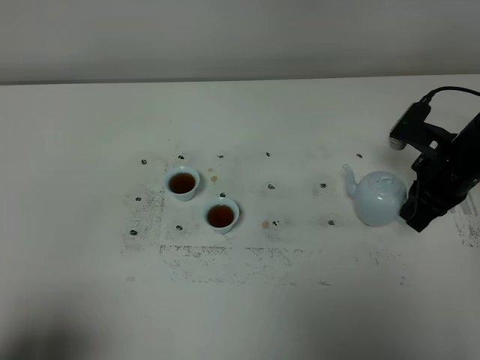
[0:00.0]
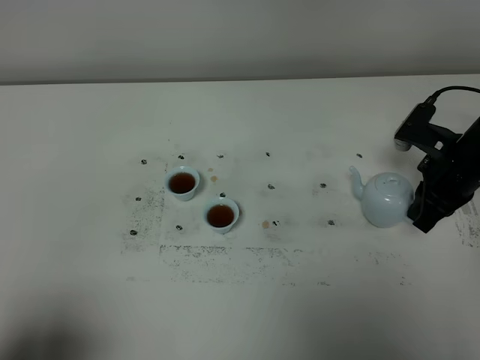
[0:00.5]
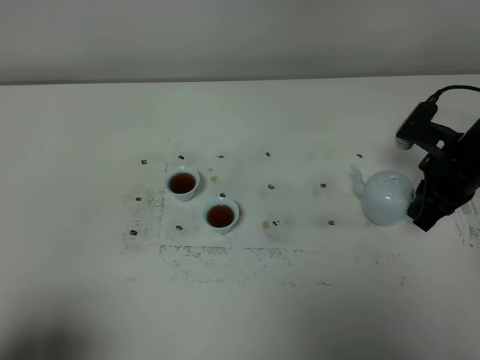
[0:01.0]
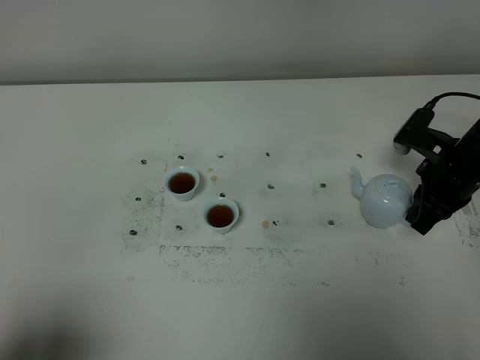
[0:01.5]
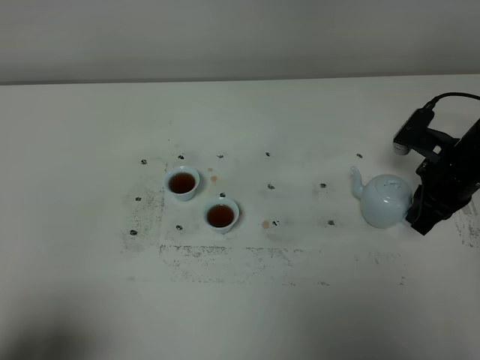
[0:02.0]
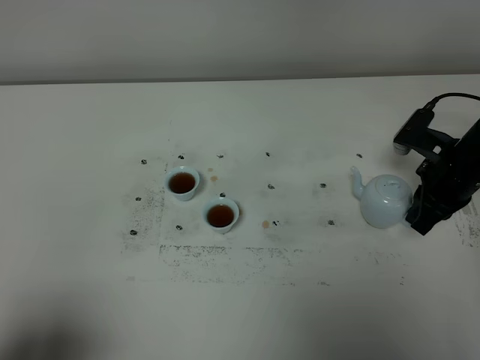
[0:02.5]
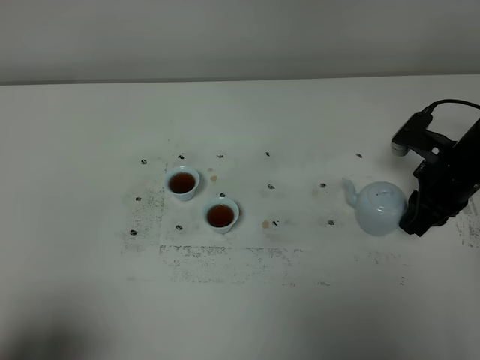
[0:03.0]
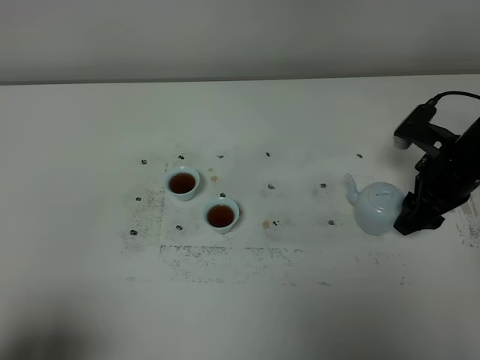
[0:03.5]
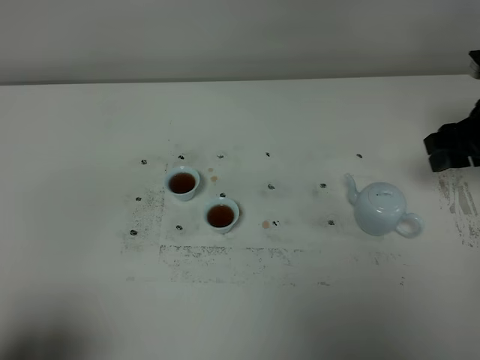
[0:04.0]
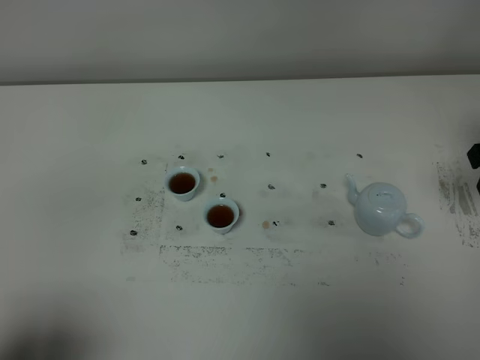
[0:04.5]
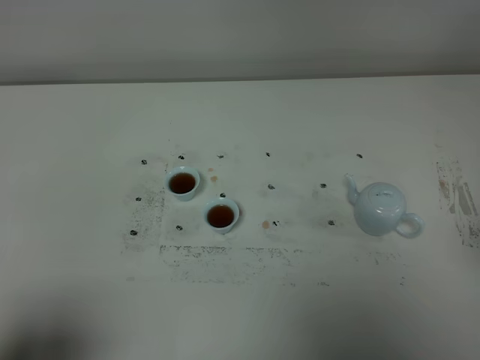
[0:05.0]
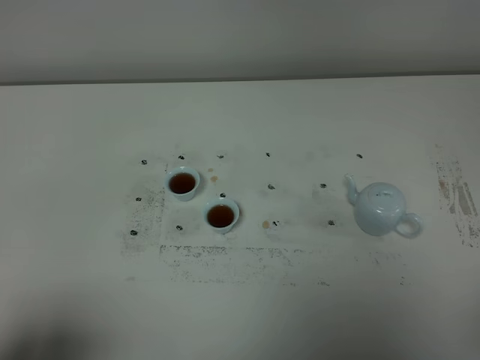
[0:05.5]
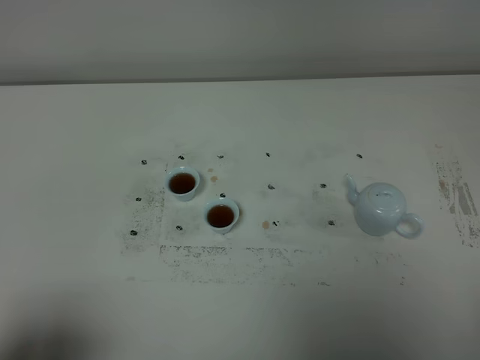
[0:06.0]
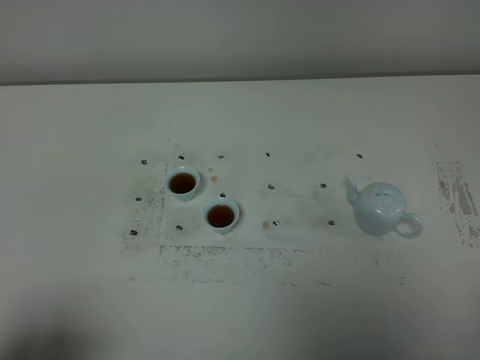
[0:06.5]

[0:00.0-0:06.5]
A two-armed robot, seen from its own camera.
Task of the whole recording: grasp the blue porcelain teapot and pour the tea into the two blue porcelain teacups one by one, put the blue porcelain teapot back in its original place.
0:00.0 to 0:02.0: The grippers make only small movements.
0:02.0 to 0:04.5: The right gripper travels upward and backward by some 15 cm, and opens up.

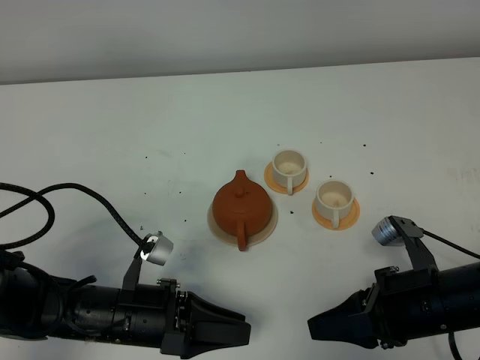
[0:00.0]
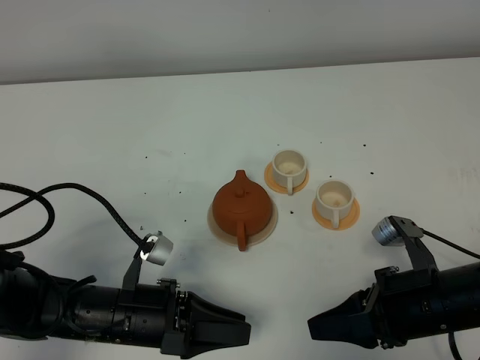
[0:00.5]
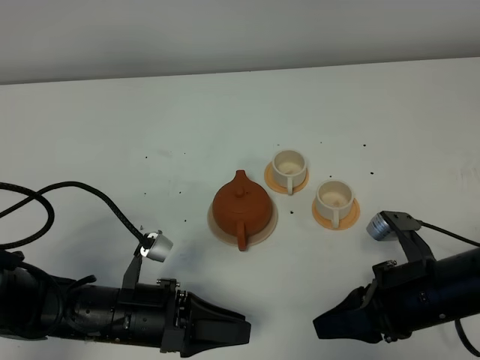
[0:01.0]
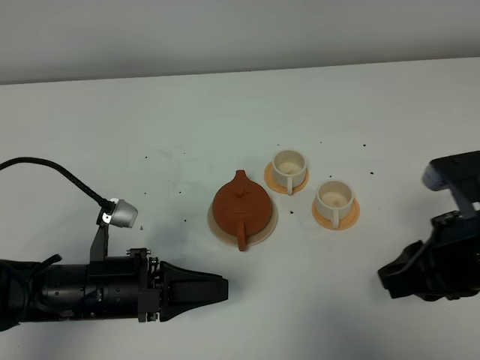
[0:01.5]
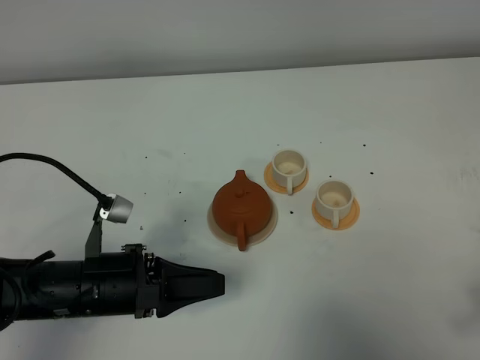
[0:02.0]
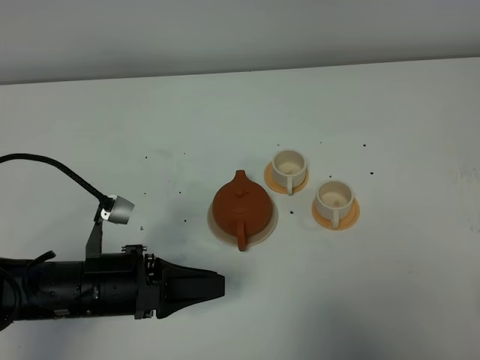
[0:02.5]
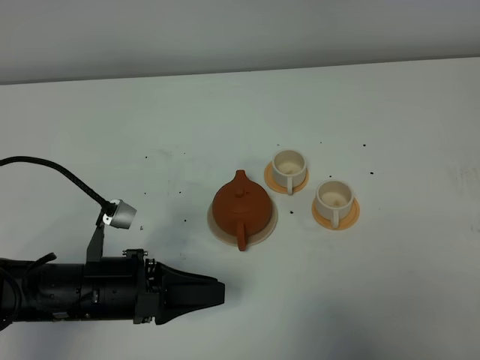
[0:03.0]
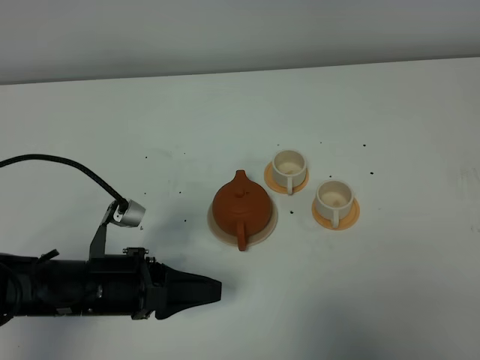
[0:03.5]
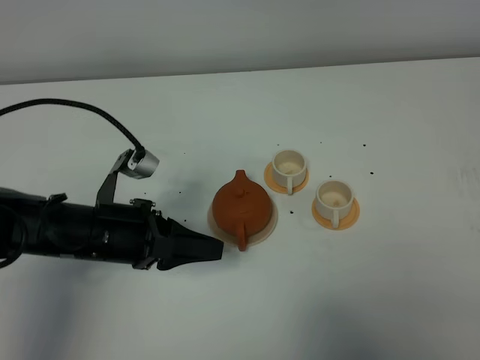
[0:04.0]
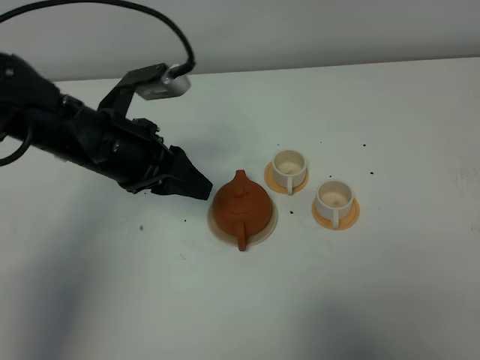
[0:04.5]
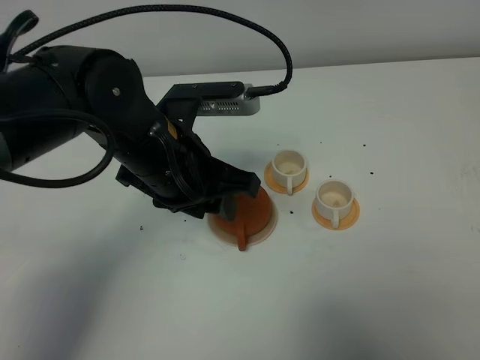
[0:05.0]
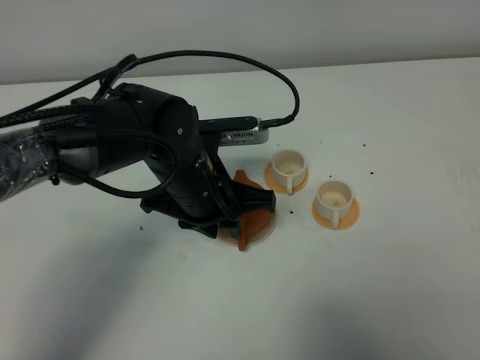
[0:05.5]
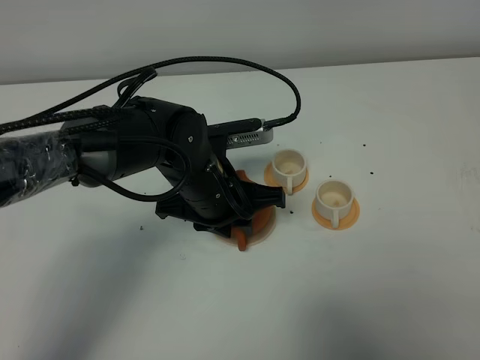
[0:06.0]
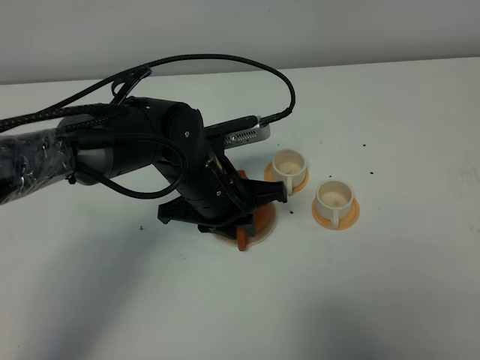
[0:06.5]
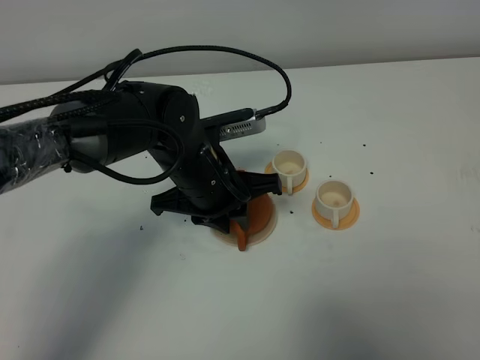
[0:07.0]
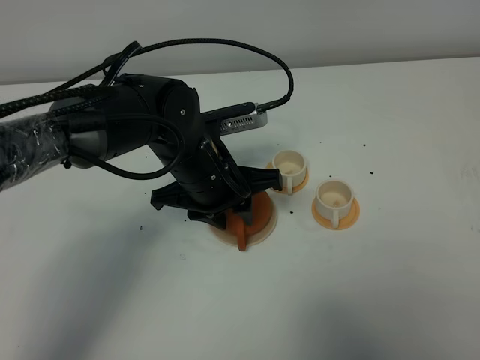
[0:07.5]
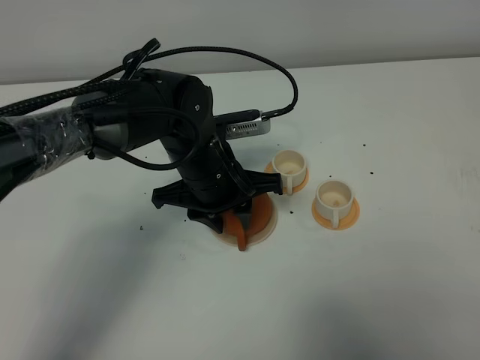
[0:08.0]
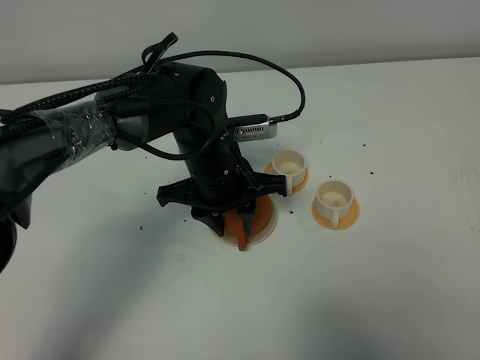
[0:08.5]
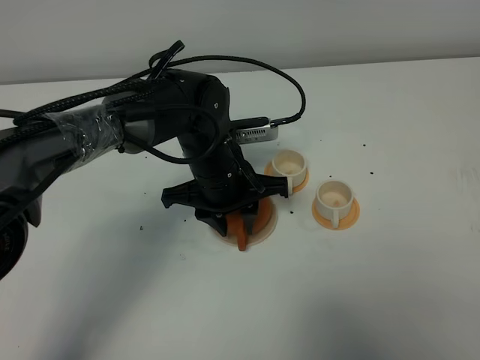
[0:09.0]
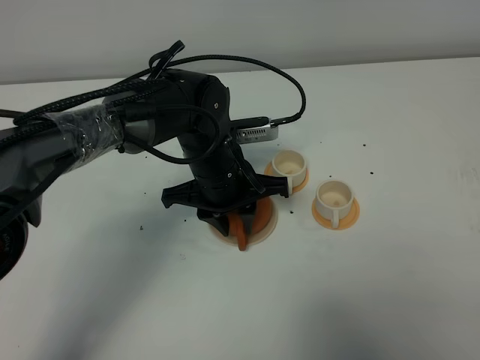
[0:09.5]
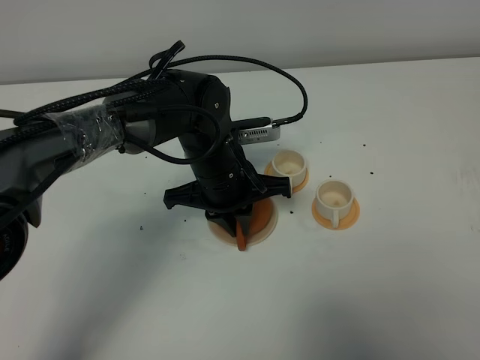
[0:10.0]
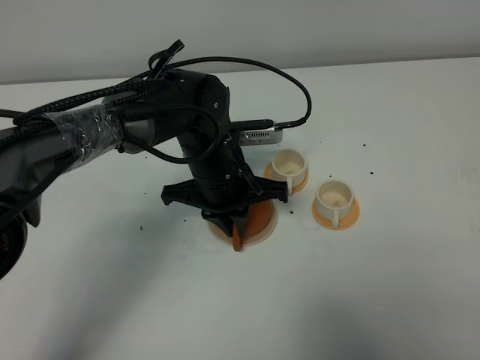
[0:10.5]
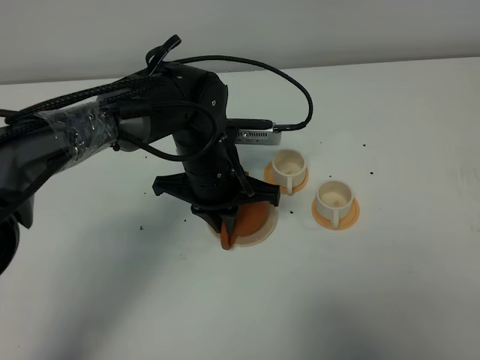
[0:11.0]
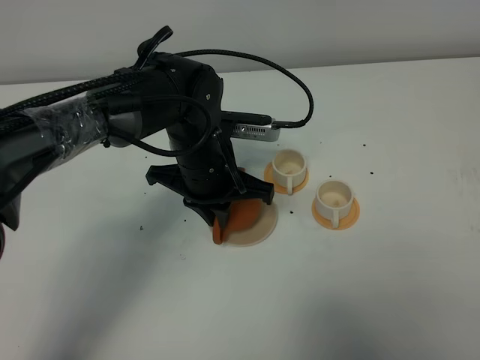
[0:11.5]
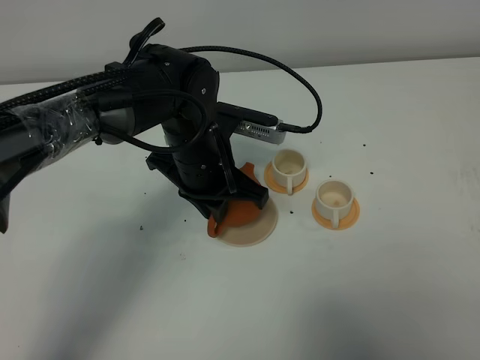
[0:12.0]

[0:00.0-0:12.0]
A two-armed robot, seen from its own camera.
Task of the whole recording: grasp the brown teapot and pour the tea into the two white teacups one by one, put the brown teapot back in its original place.
Step, 0:00.0 to 0:11.0: Pick up the teapot with the left gripper.
0:00.0 to 0:02.0: The right gripper goes approximately 20 cm upward, to the right and backward.
0:02.0 to 0:04.0: The right gripper heads backward, covering approximately 10 cm, while the left gripper shifts some 5 cm forward.
0:04.0 to 0:06.0: The left gripper shifts about 15 cm to the right and forward.
0:06.0 to 0:08.0: The grippers stay close to where they were, moving slightly.
0:08.0 to 0:10.0: The left gripper closes up.

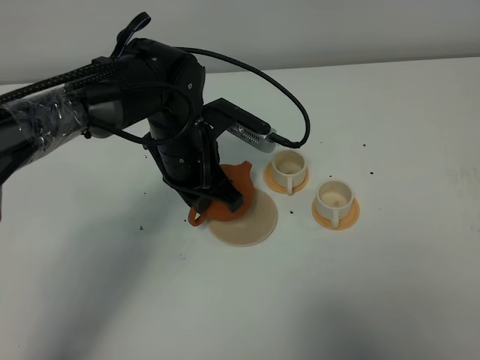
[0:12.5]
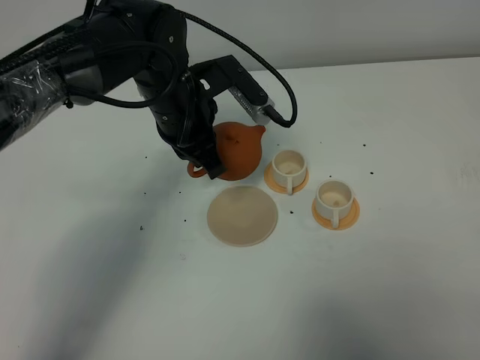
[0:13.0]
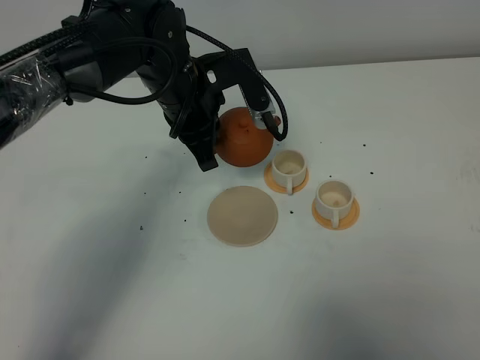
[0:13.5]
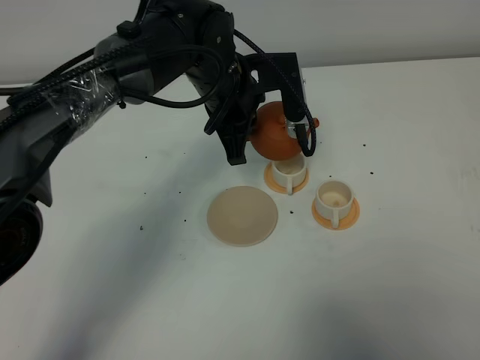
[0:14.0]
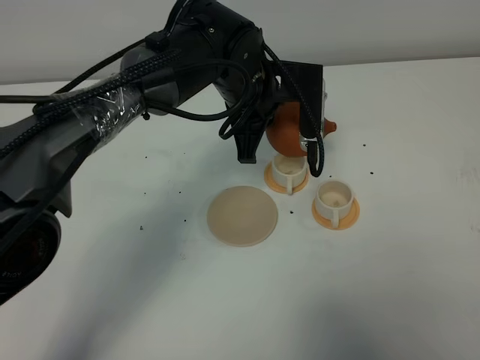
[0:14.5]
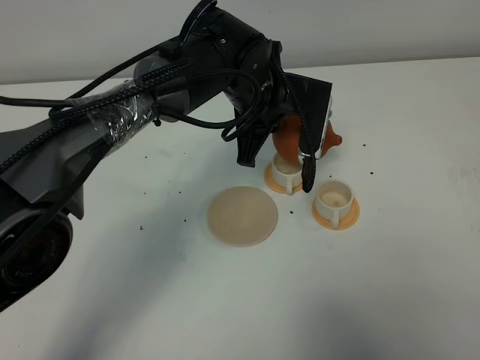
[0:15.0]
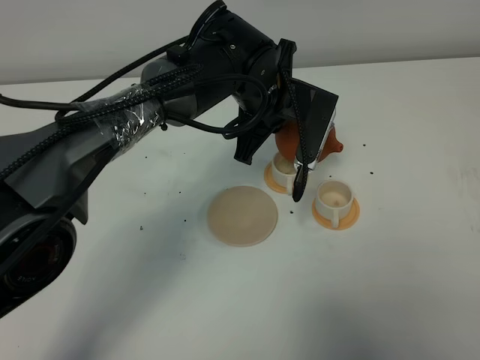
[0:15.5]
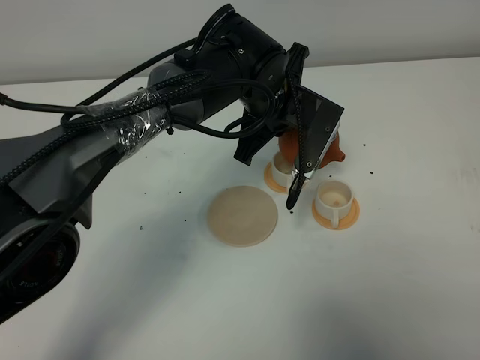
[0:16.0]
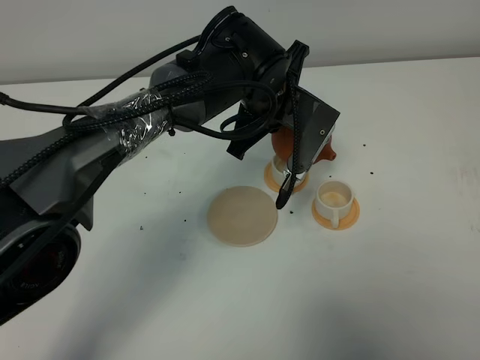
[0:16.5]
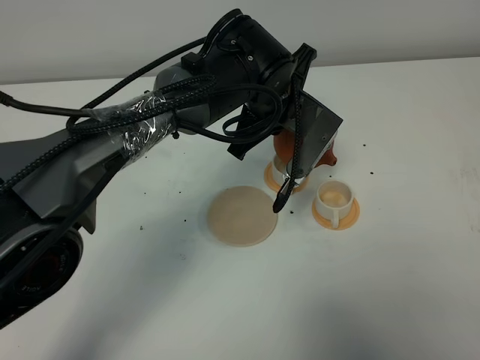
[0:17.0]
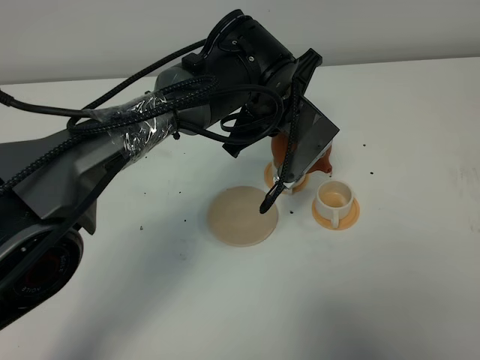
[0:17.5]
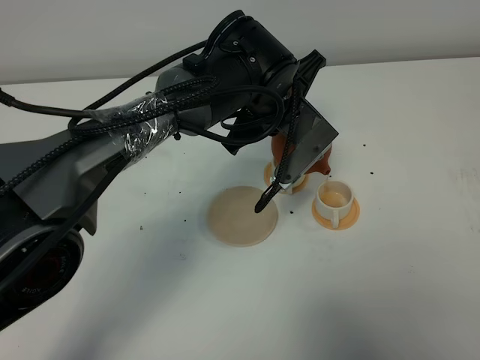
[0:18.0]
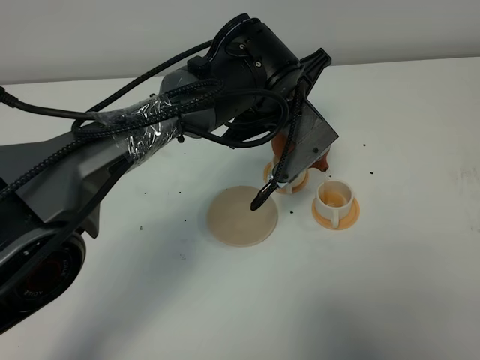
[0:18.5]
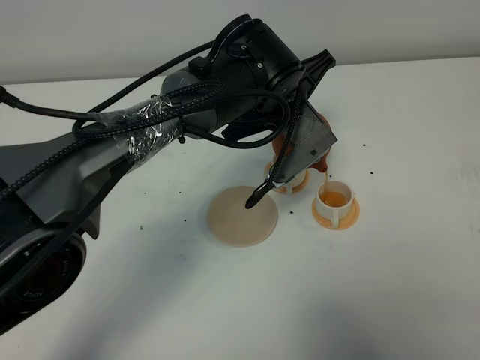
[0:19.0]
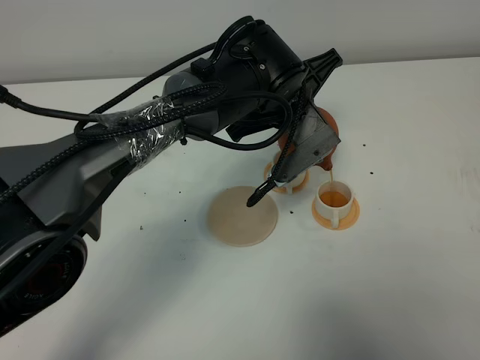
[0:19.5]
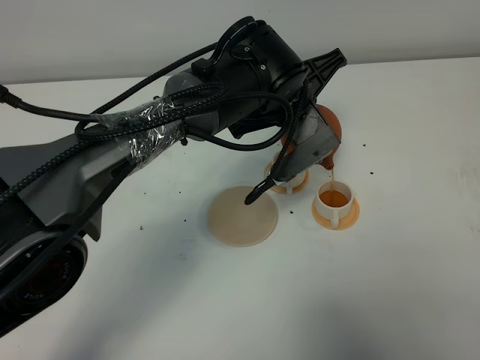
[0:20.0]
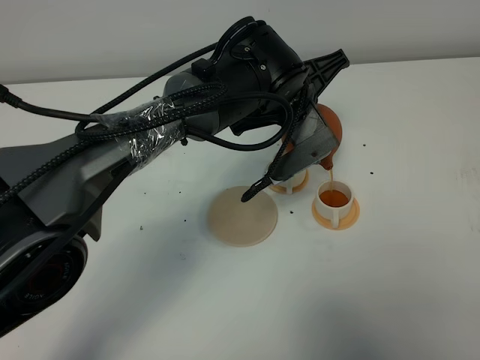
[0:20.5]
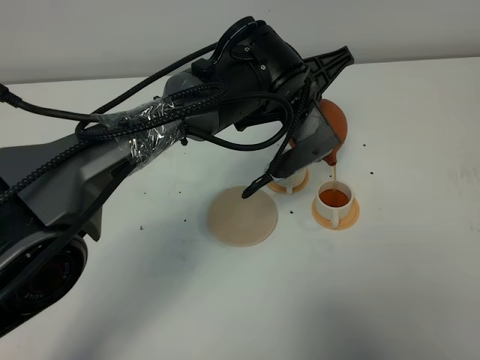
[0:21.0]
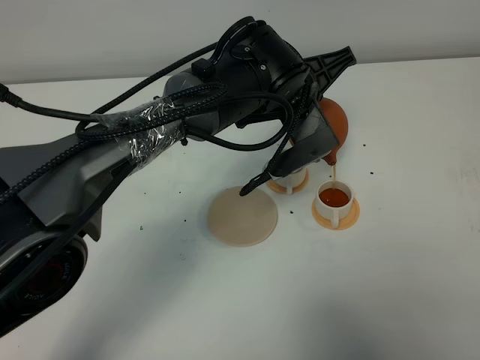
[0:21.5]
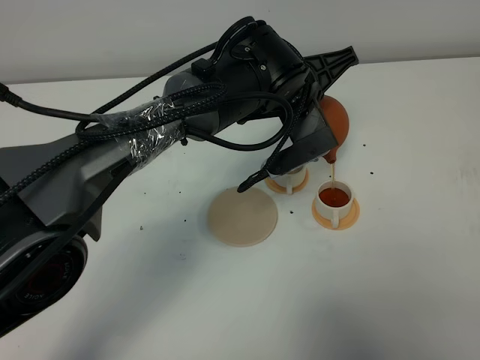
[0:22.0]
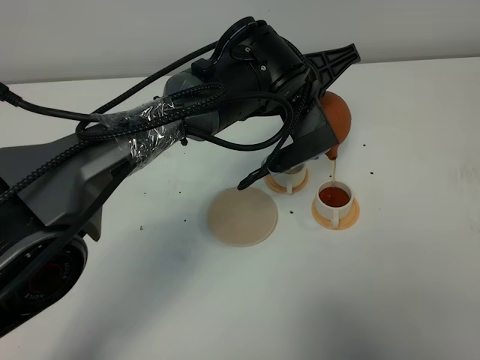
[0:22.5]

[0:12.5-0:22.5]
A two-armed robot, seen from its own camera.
Task of the whole recording: grasp the brown teapot and pour the tea into the two white teacups one by one, put the brown teapot back in its original place.
0:12.5 to 0:14.5: The left gripper is displaced to the right by approximately 10 cm.
0:16.5 to 0:18.5: There are only small adjustments of the grippers.
0:18.5 to 0:22.5: The grippers stay close to where they were, moving slightly.
